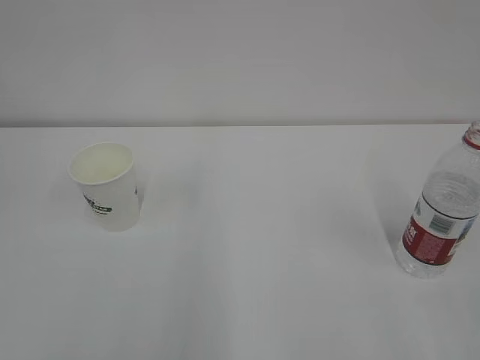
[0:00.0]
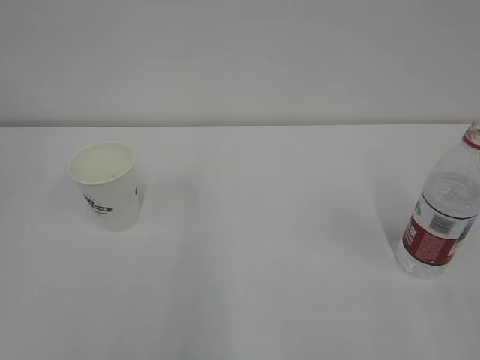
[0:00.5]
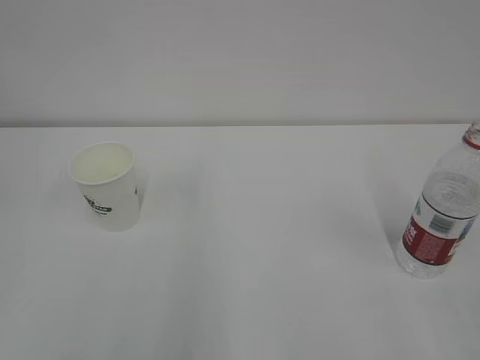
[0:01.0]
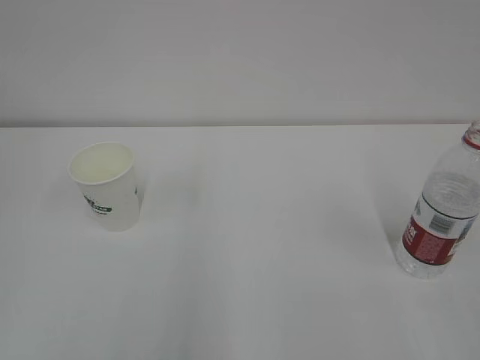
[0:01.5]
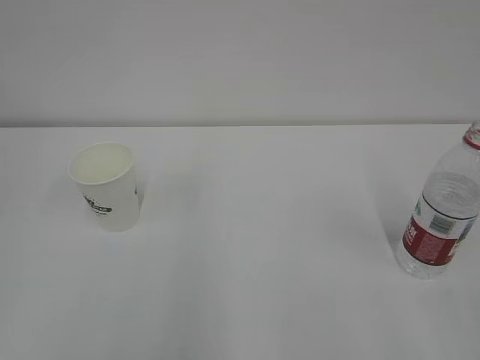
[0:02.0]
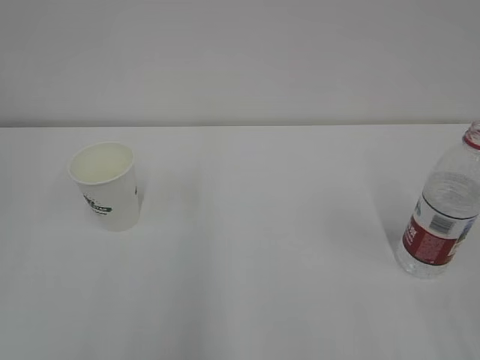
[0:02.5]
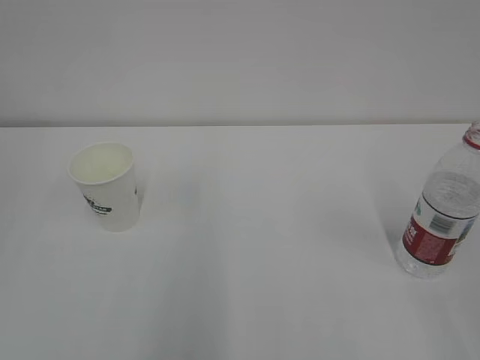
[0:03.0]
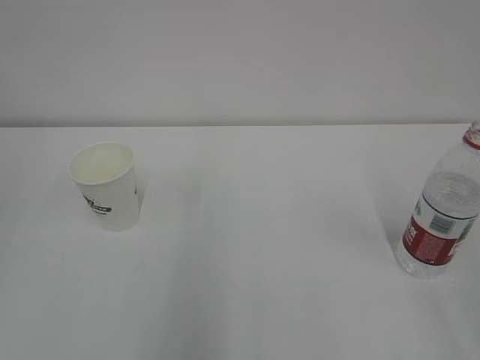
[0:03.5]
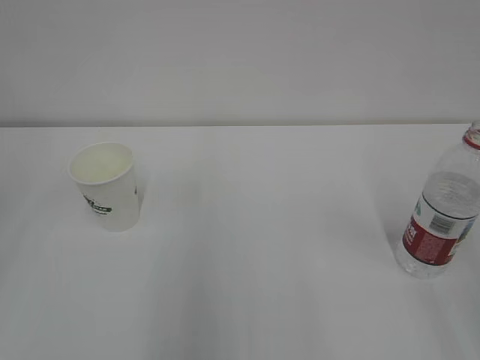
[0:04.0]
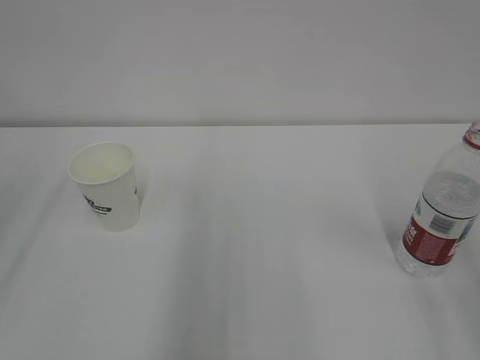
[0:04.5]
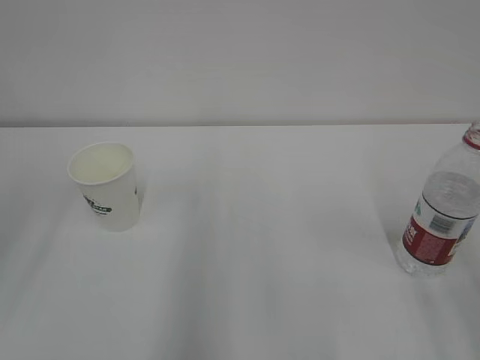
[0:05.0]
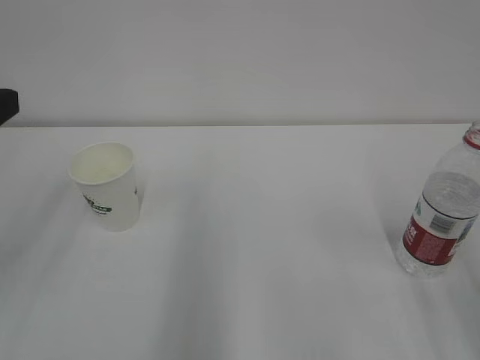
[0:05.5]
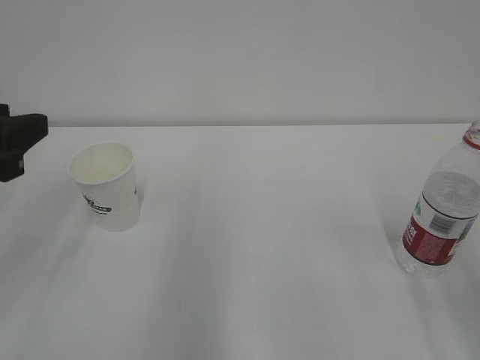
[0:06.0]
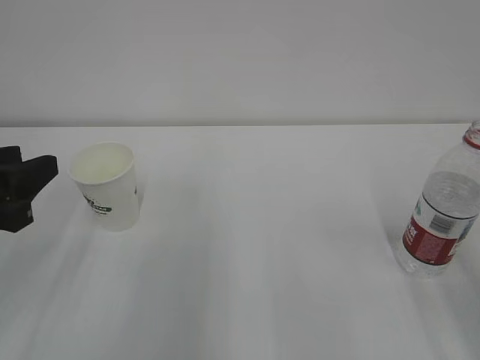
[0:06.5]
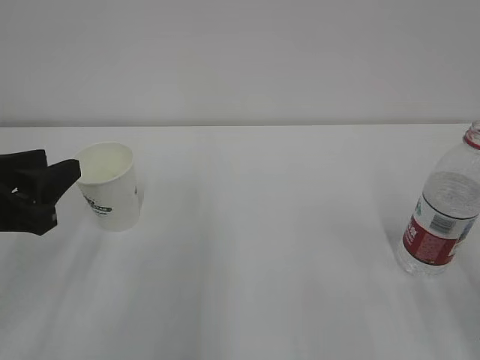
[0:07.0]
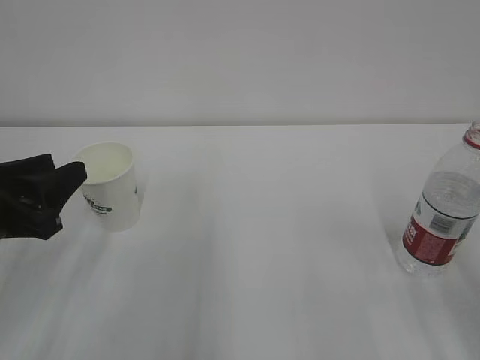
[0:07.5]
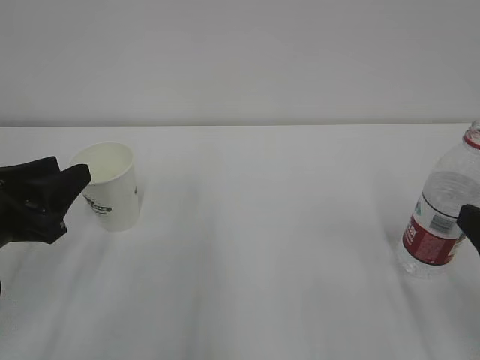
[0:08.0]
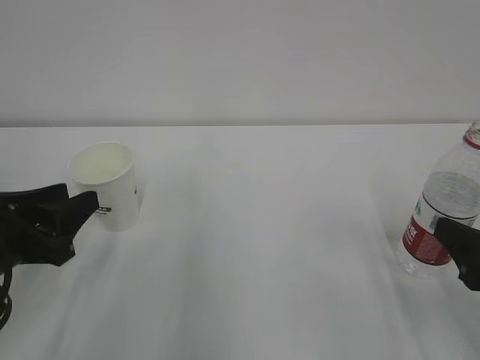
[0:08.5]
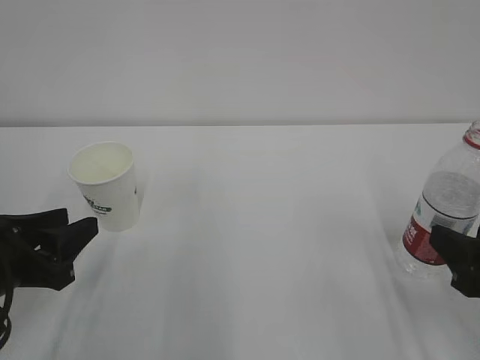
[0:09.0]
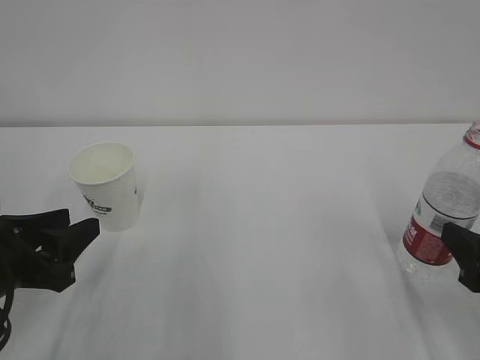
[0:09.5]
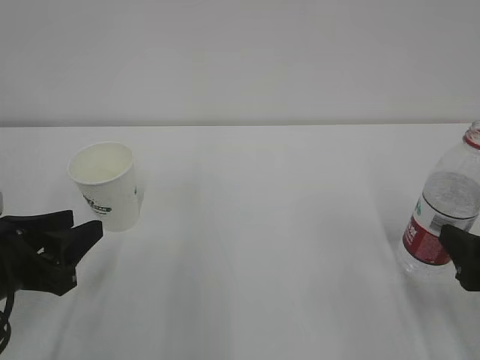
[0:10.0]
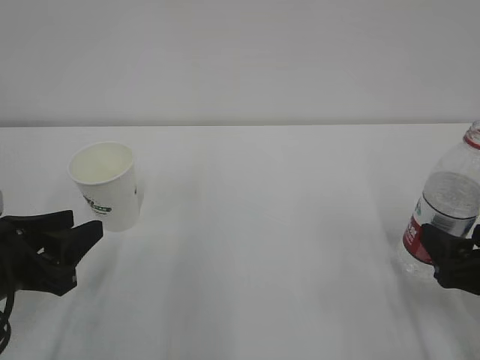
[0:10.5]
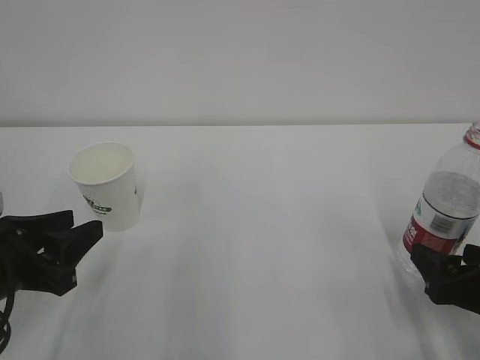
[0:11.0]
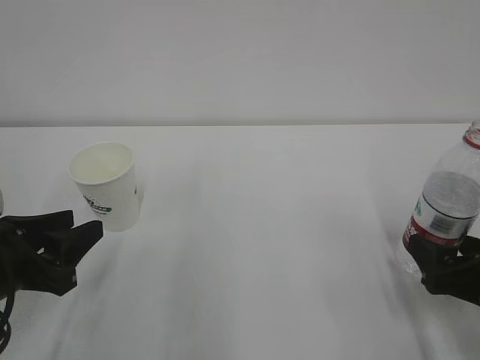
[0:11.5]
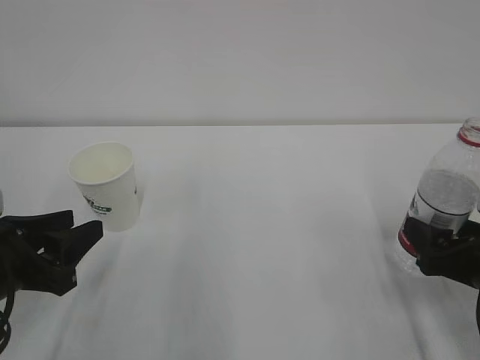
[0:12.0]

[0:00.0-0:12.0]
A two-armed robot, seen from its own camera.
0:04.0 to 0:06.0: The left gripper is displaced forward, downward and to the right by about 15 cm.
0:06.0 to 0:08.0: The left gripper heads downward, covering approximately 10 cm.
0:08.0 to 0:10.0: The right gripper ends up roughly 5 cm from where it was.
0:10.0 to 0:12.0: The right gripper ends up approximately 5 cm from where it was.

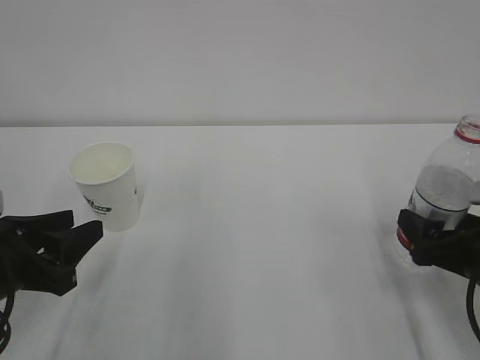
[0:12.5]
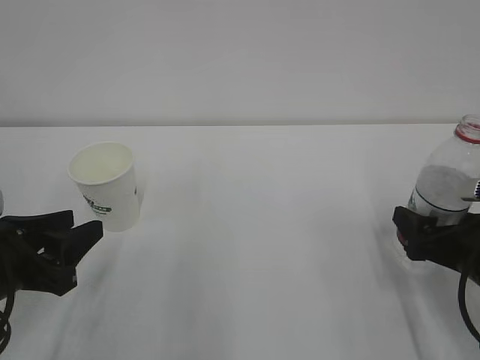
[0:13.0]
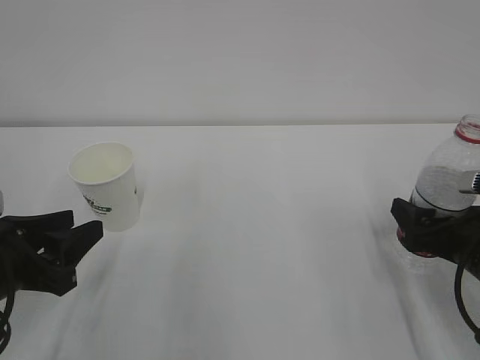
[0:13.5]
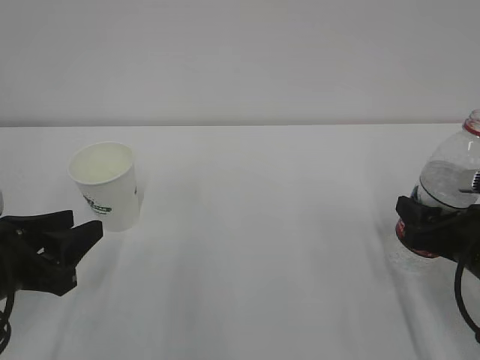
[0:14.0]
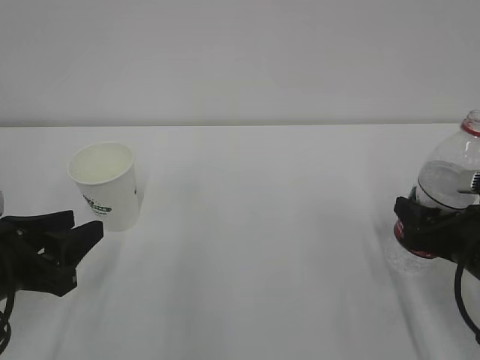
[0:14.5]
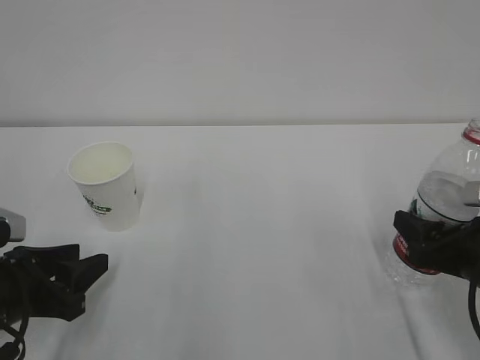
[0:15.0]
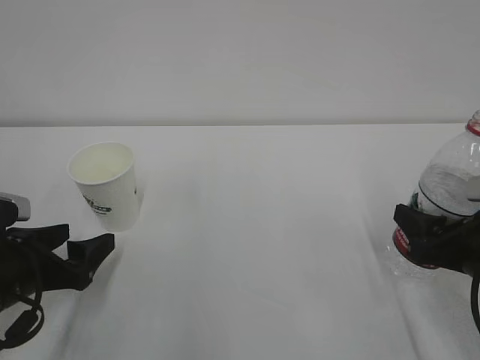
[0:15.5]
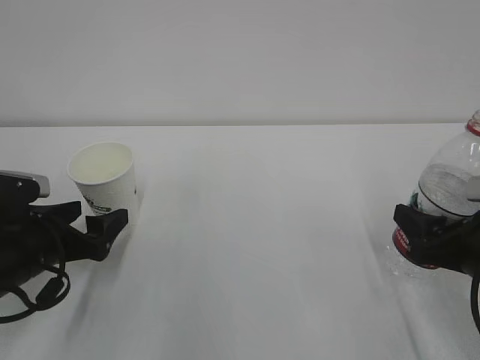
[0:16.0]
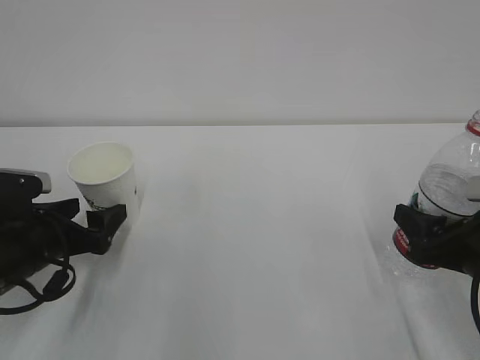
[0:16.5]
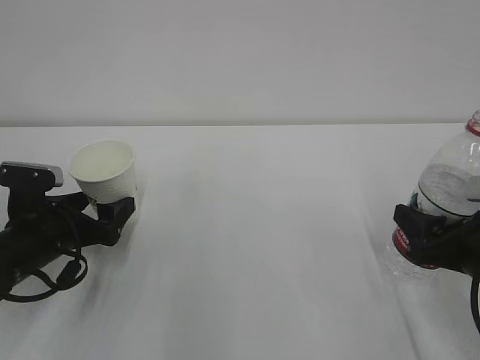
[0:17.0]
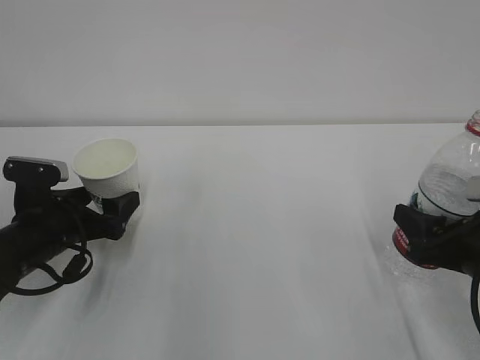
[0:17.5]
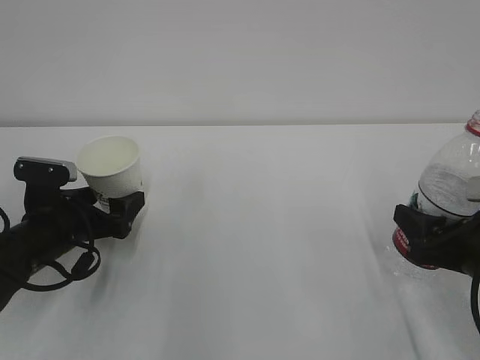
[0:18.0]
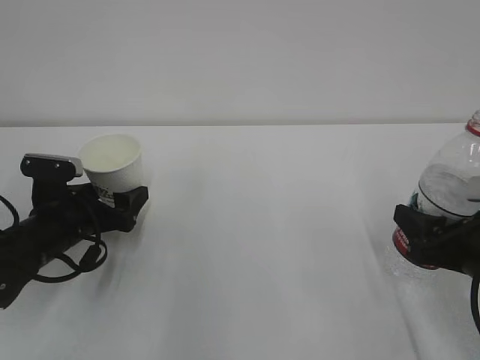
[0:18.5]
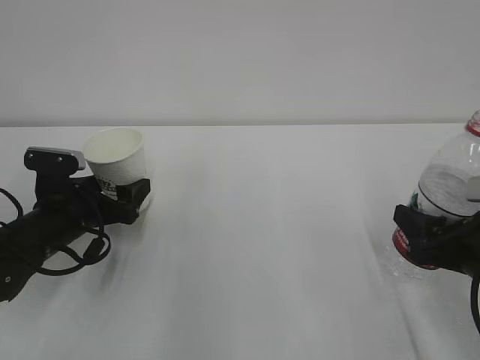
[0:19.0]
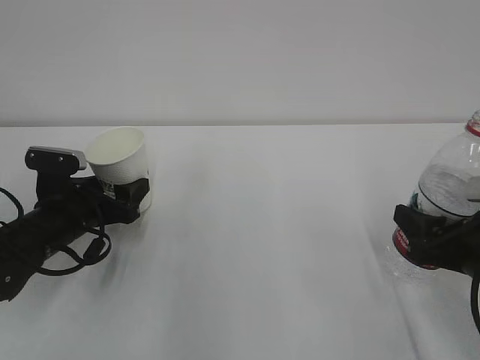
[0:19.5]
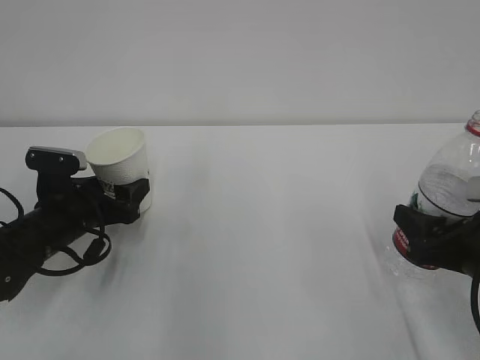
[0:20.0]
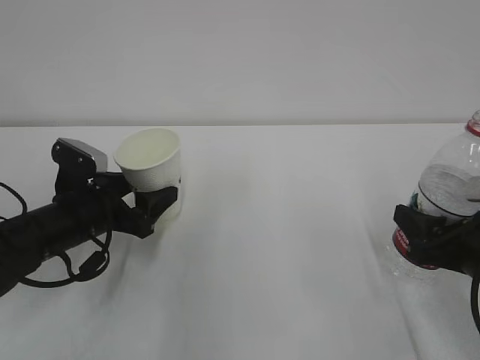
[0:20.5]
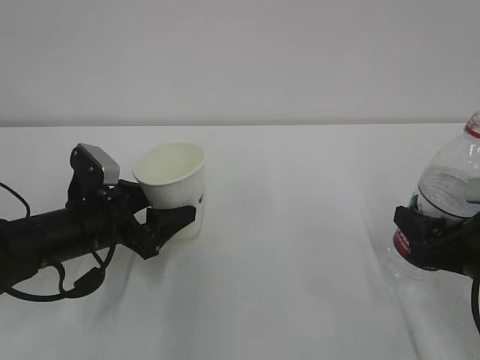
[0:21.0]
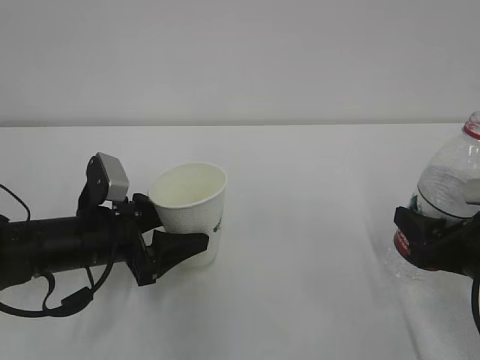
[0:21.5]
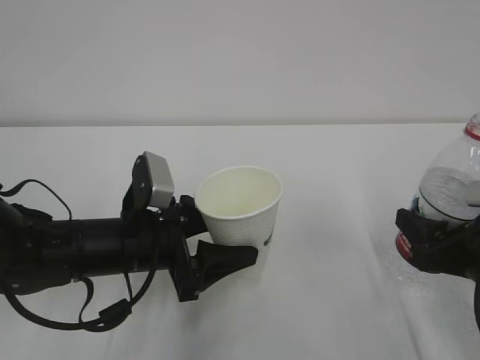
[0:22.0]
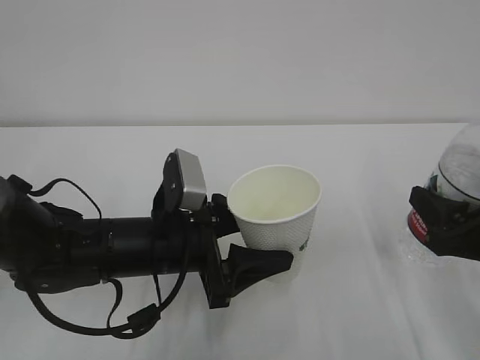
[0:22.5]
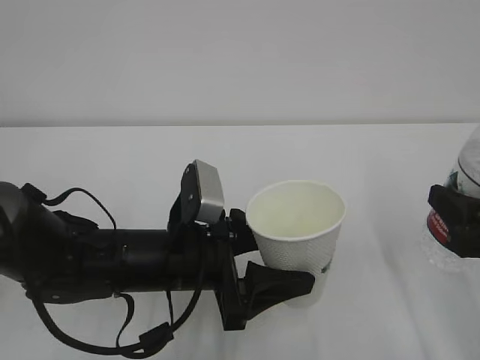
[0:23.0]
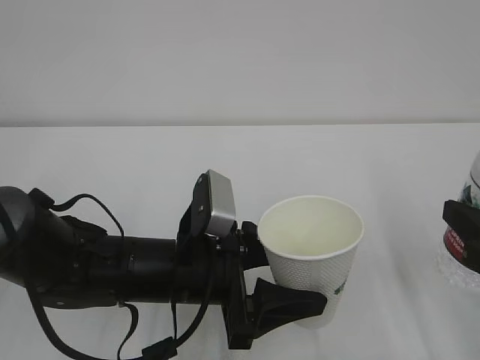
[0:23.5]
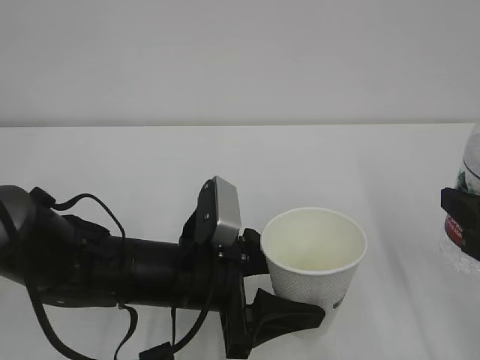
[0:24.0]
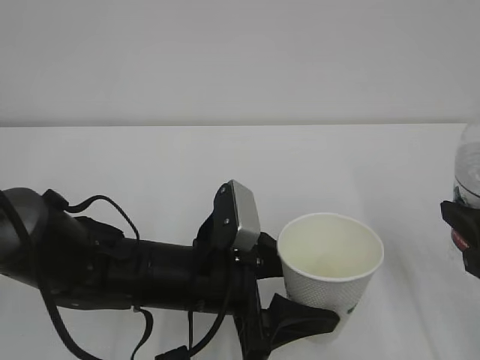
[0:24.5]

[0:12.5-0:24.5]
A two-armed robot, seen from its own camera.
0:12.5 to 0:14.5: The right gripper closes up.
0:14.5 to 0:16.5: The left gripper travels forward by roughly 5 cm, and opens up.
0:16.5 to 0:18.5: The left gripper changes place by about 5 cm.
0:18.5 to 0:20.5: The left gripper closes up.
0:20.5 to 0:22.5: The left gripper goes some 15 cm to the right and backward.
0:22.5 to 0:24.5: The left gripper moves about 5 cm, while the right gripper ends up roughly 5 cm from where it was.

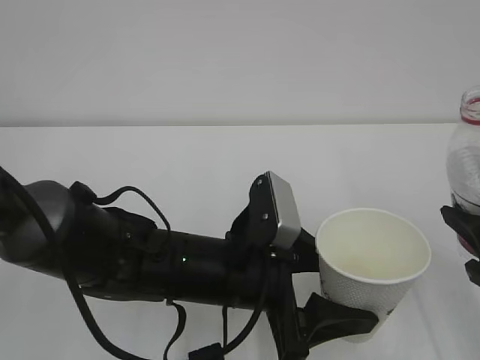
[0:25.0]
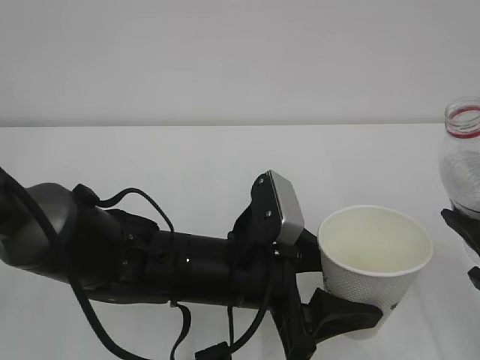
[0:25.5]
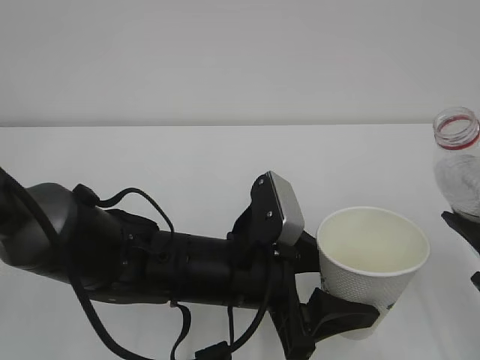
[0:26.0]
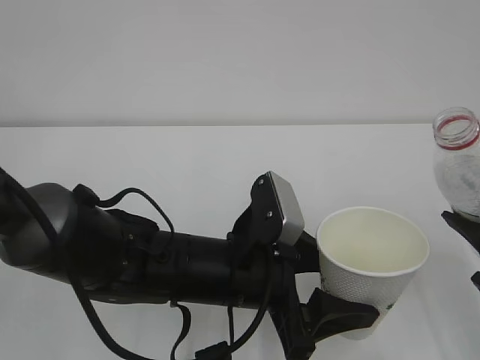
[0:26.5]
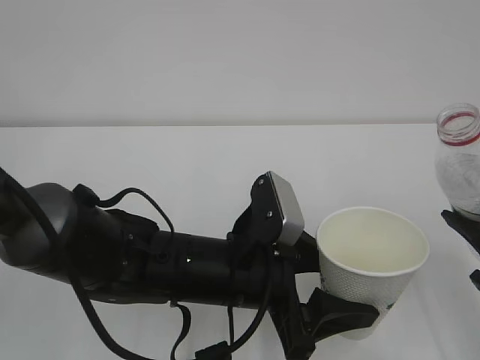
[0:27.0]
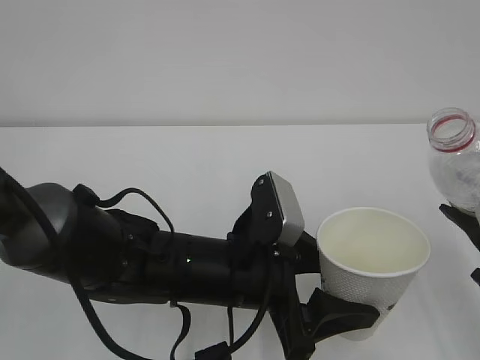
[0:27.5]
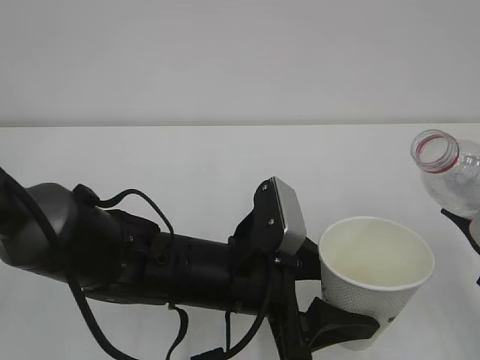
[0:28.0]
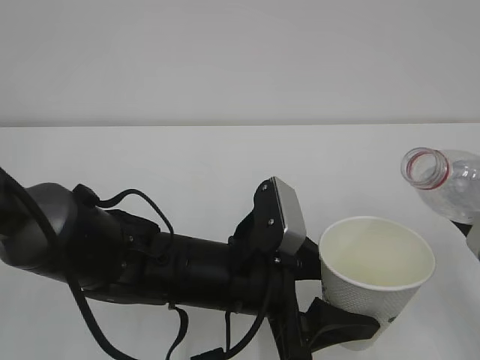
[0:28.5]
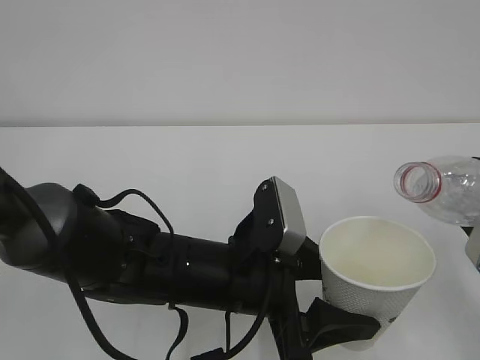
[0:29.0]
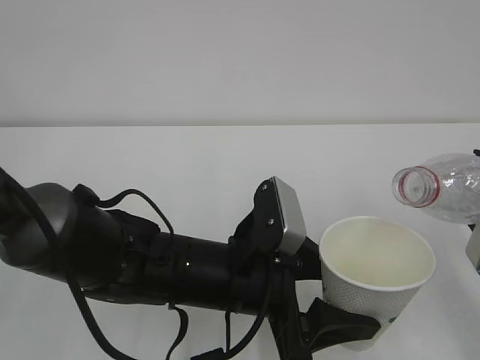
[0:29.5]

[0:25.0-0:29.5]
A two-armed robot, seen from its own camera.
0:25.0 to 0:27.0: The grippers stay close to where they were, moving slightly.
